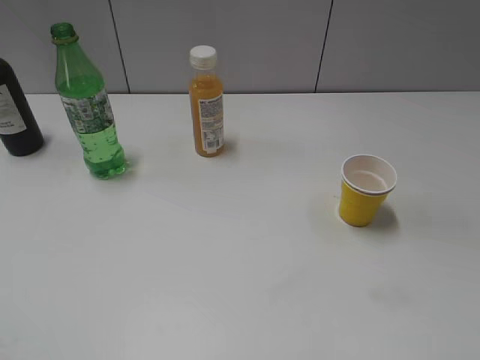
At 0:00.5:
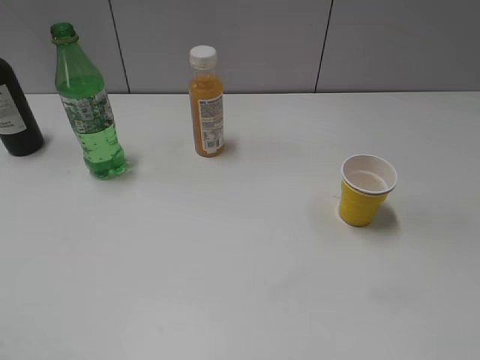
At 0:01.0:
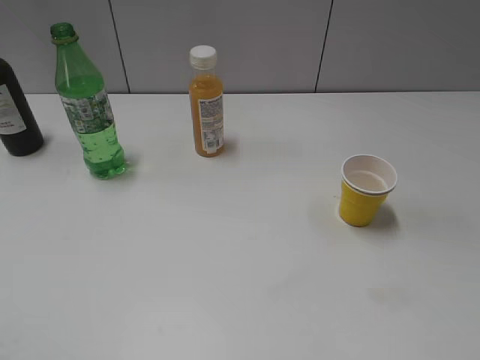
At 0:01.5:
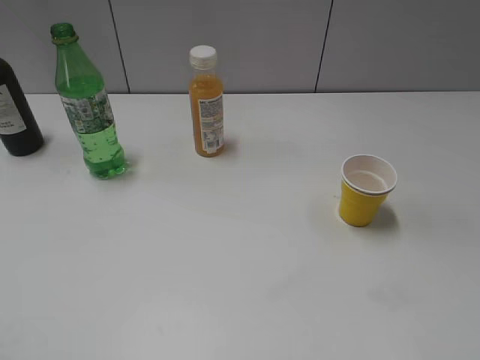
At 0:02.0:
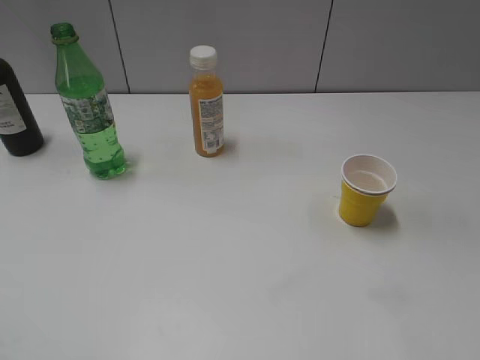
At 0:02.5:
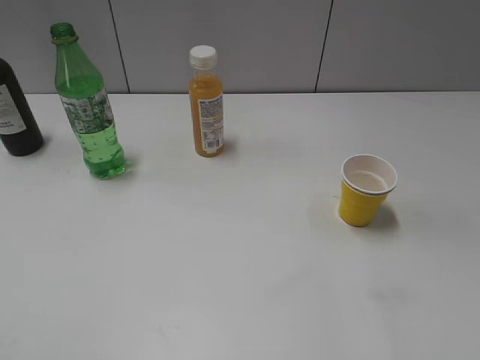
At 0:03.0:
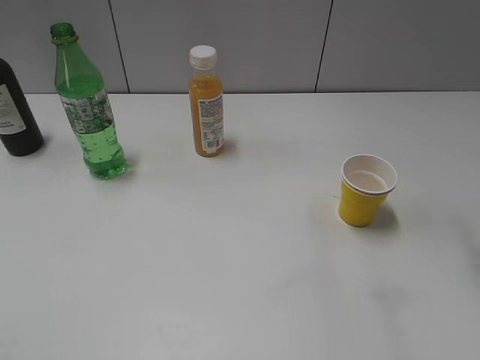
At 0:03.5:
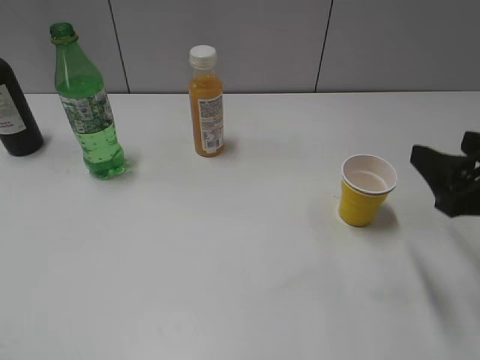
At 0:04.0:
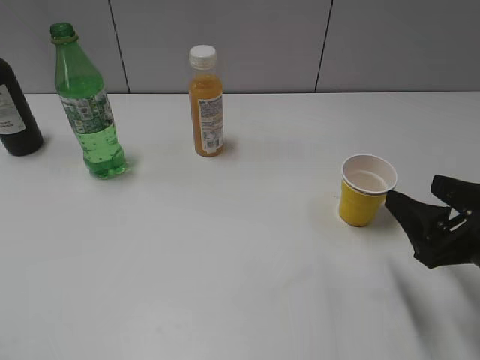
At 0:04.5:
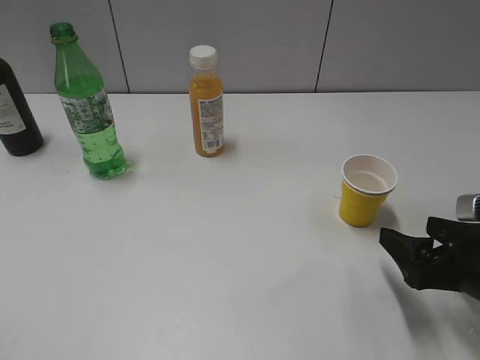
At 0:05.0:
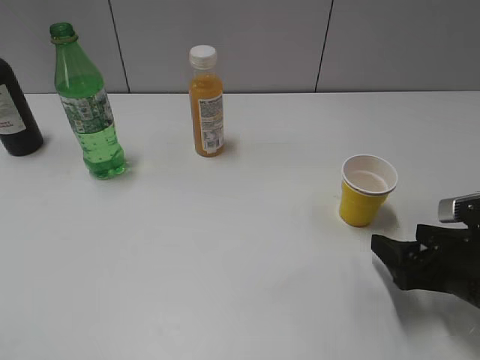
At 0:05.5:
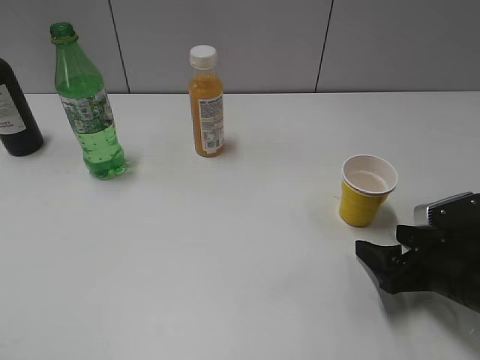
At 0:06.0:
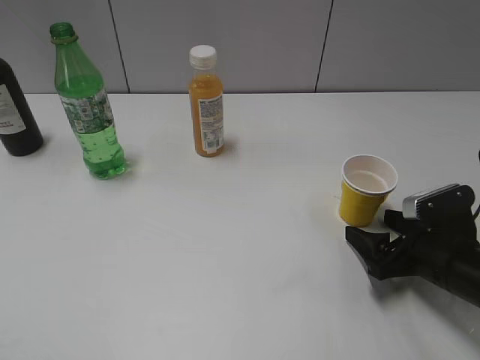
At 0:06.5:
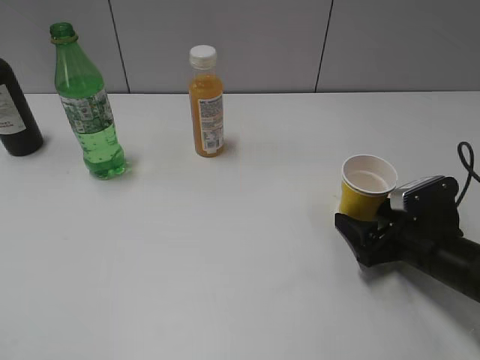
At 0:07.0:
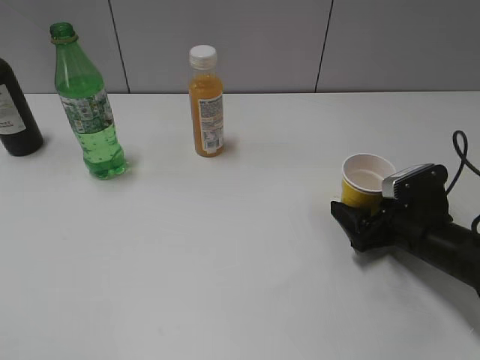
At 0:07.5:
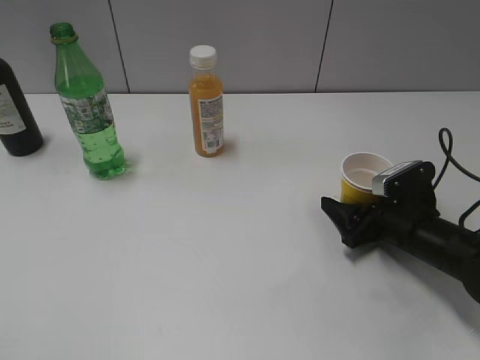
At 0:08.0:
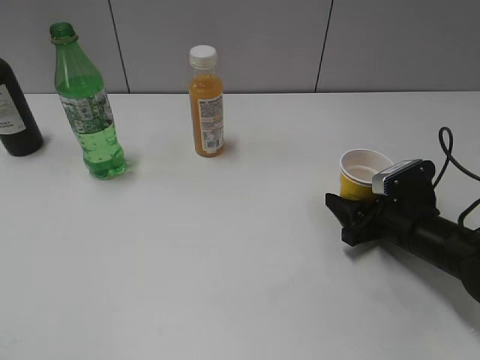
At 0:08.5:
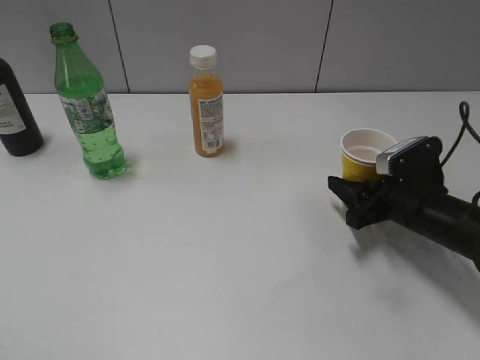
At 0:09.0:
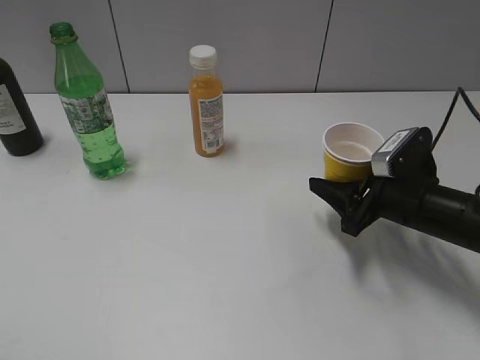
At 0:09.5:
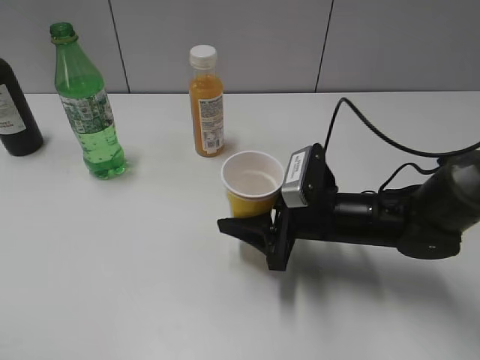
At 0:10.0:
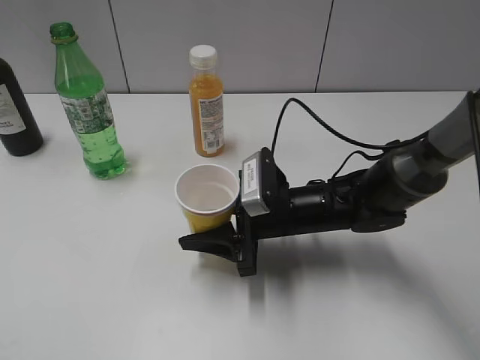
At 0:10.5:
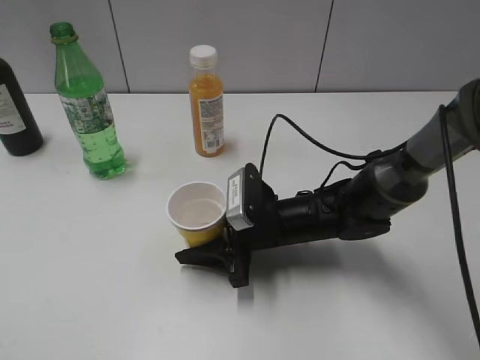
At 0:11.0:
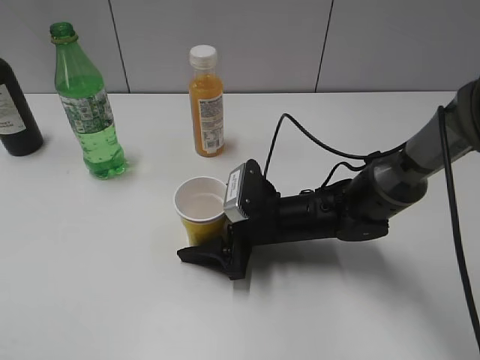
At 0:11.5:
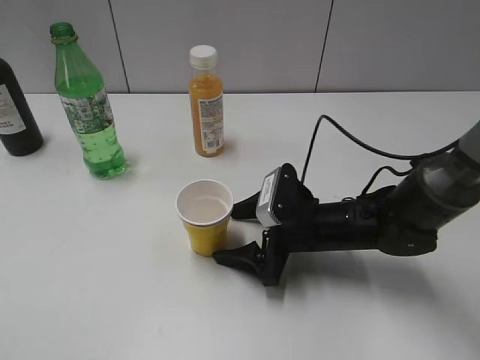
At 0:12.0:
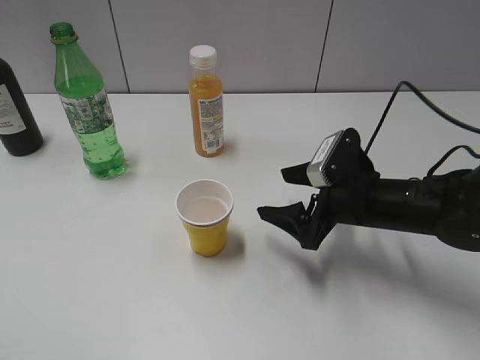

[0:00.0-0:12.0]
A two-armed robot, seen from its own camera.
Step, 0:00.0 to 0:08.0: Grasp the yellow paper cup with right gripper.
Step, 0:08.5 to 0:11.5: Place the yellow paper cup on the table with right gripper.
0:02.0 to 0:04.0: The right gripper travels downward and forward by roughly 20 cm.
0:04.0 to 0:06.0: The right gripper is displaced downward by approximately 10 cm.
0:06.0 to 0:08.0: The right gripper moves forward, roughly 5 cm, and closes up.
0:08.0 to 0:10.0: The right gripper travels to the left by some 15 cm.
0:10.0 to 0:12.0: The right gripper travels to the right by about 10 cm, and opens its fingers.

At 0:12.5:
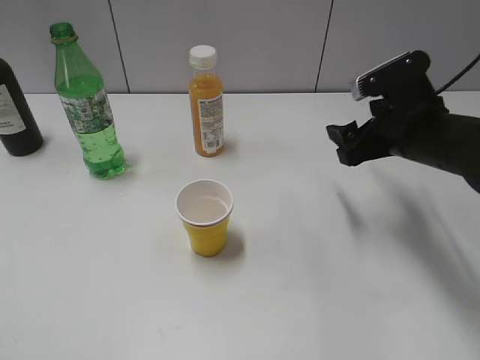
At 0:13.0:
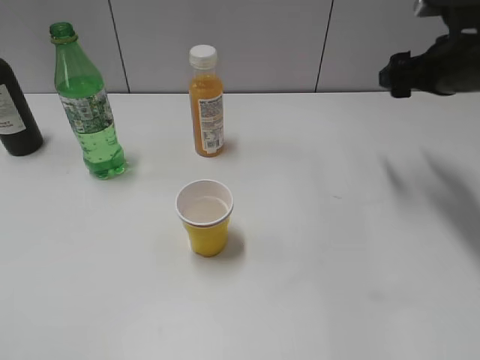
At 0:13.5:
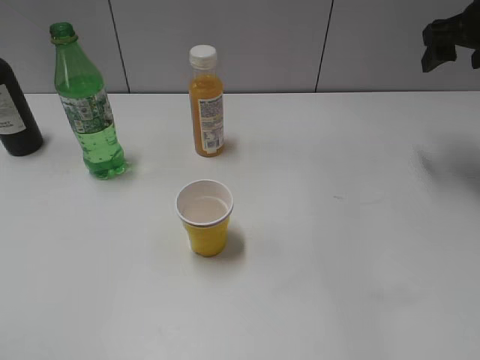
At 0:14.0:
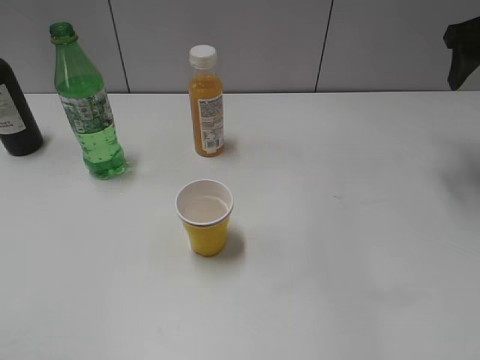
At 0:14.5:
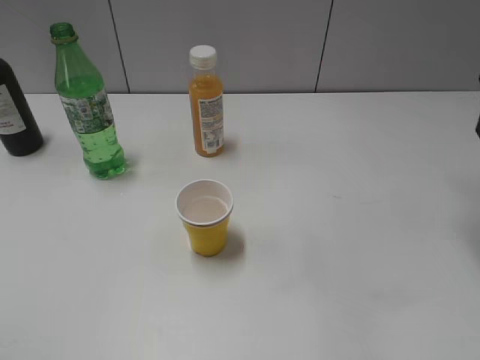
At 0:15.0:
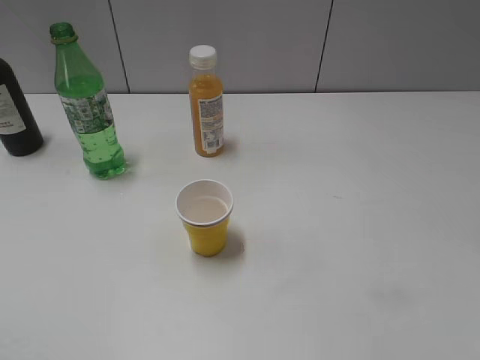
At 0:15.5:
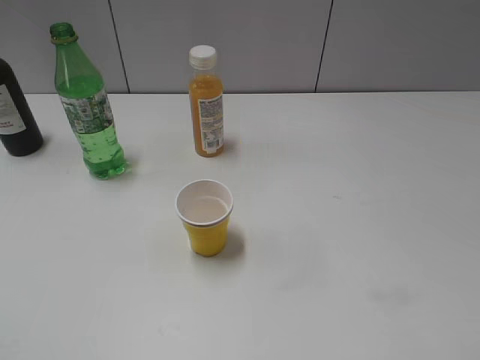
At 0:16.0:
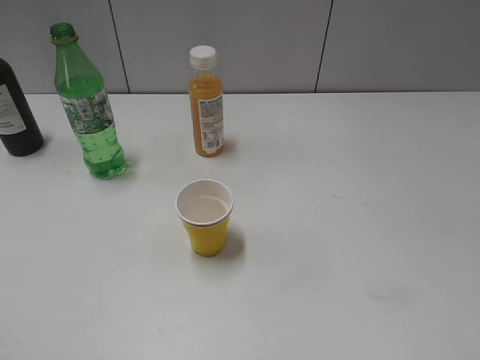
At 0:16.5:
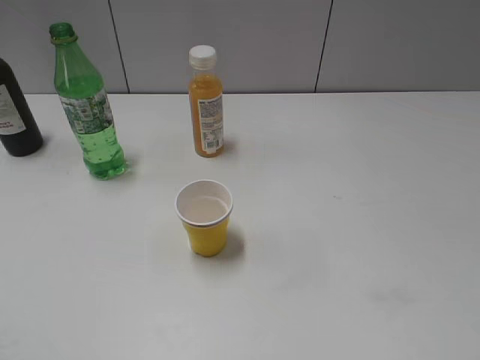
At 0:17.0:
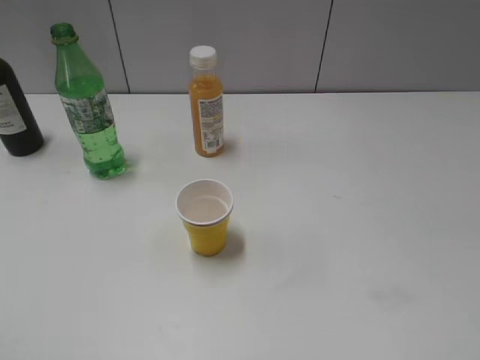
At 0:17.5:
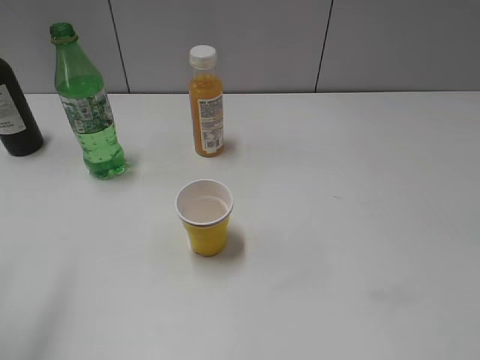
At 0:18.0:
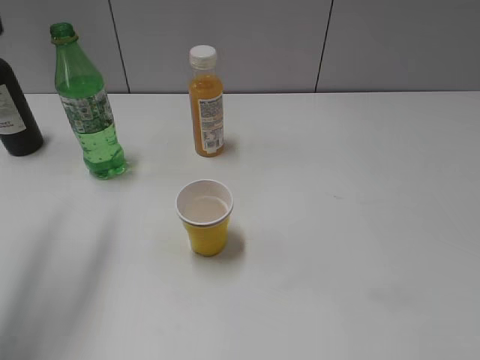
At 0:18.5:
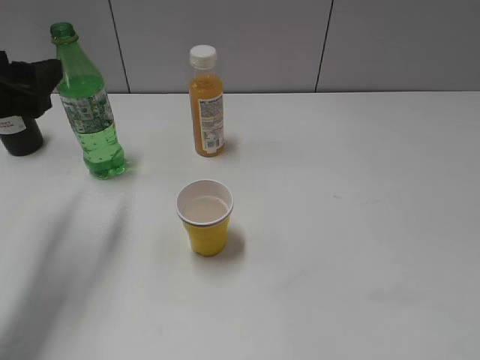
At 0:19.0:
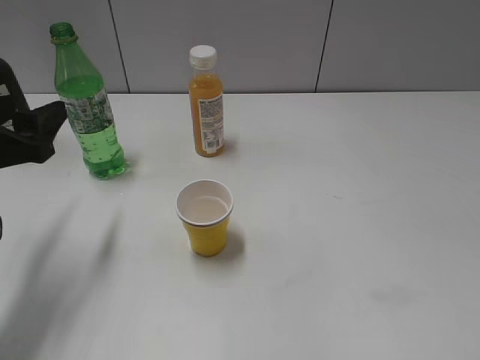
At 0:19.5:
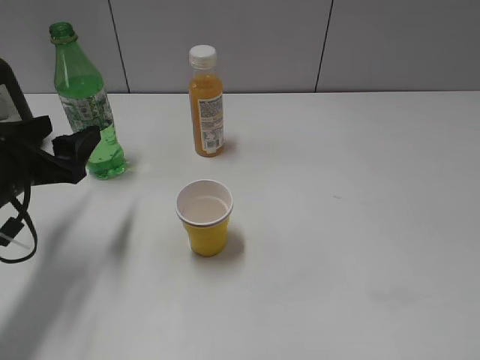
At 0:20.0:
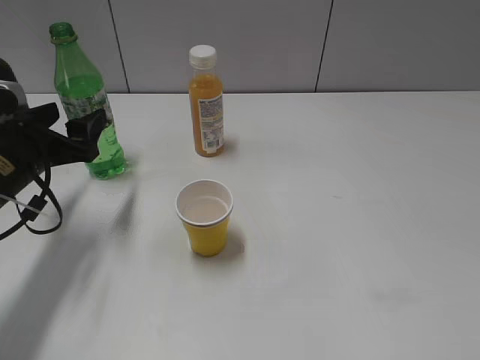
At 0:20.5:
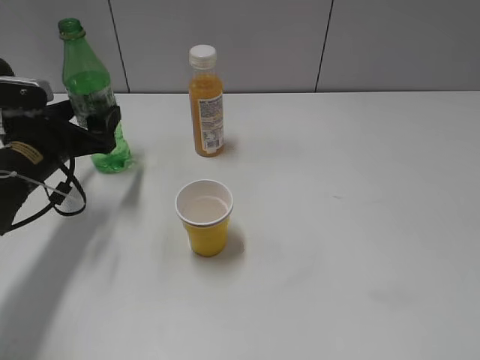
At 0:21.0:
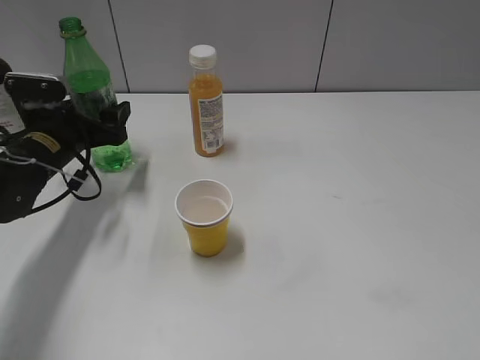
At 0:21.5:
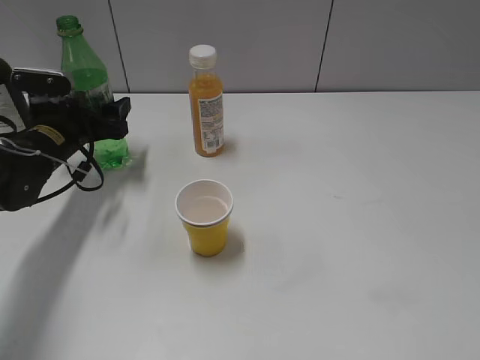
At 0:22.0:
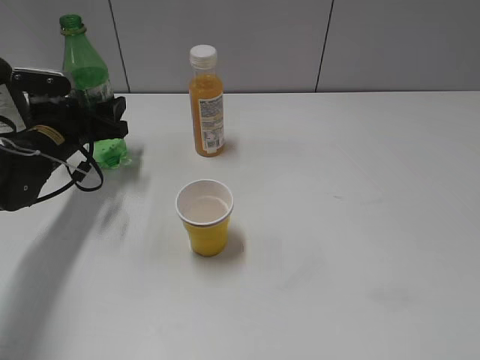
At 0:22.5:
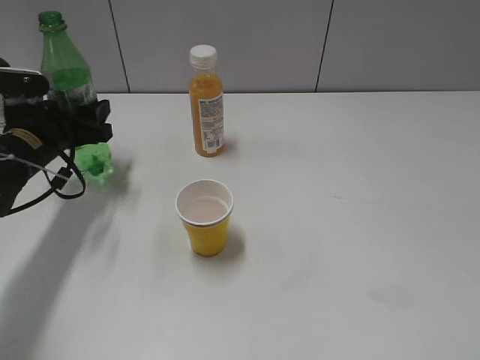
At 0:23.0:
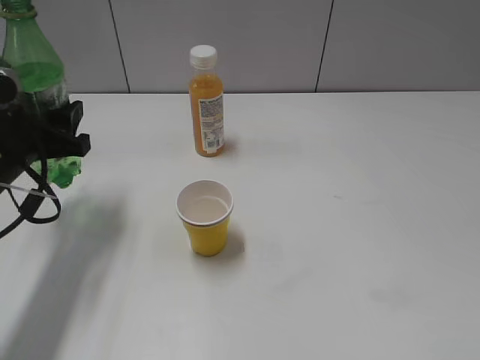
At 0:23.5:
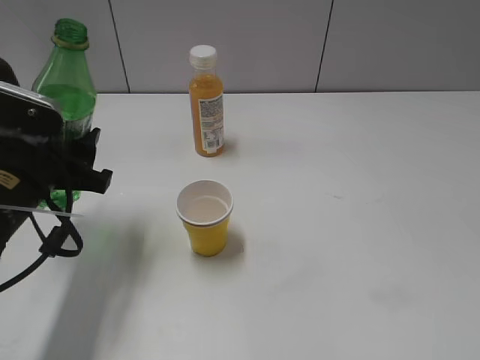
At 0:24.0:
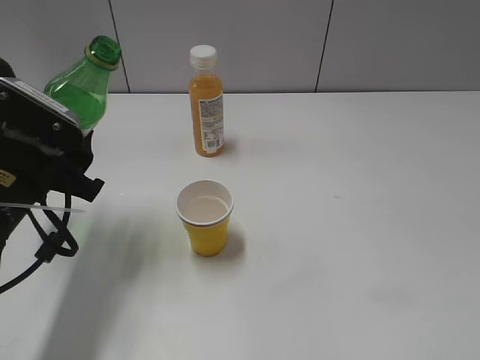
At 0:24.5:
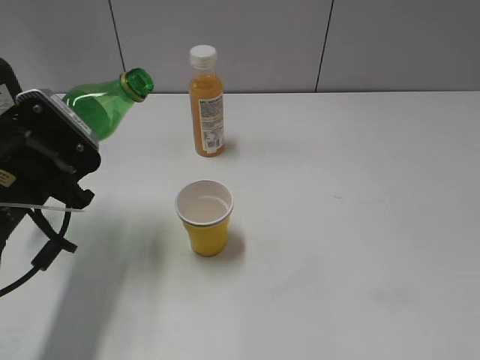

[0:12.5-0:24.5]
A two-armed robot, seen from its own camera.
Step, 0:12.5 to 0:21.5: Grasp the bottle with sprite with left gripper.
0:12.5 to 0:14.5: The right gripper goes some 15 cm upward and to the right.
0:16.5 to 0:18.5: The left gripper moves forward, roughly 25 cm.
0:18.5 to 0:20.5: The left gripper travels downward and forward by about 15 cm.
0:20.5 to 0:22.5: The left gripper closes its fingers.
0:22.5 to 0:24.5: The left gripper is displaced backward by approximately 10 cm.

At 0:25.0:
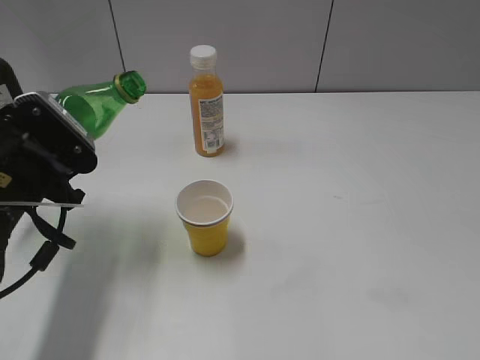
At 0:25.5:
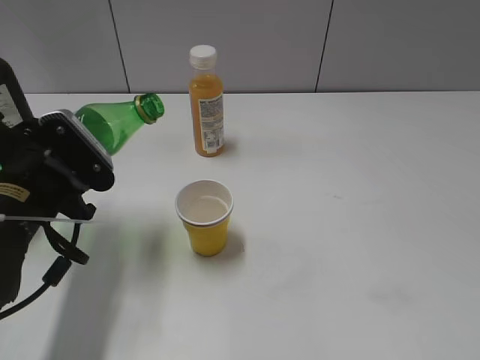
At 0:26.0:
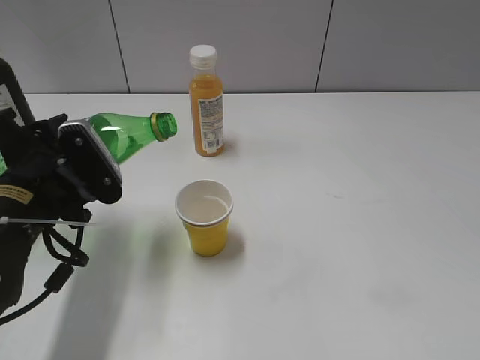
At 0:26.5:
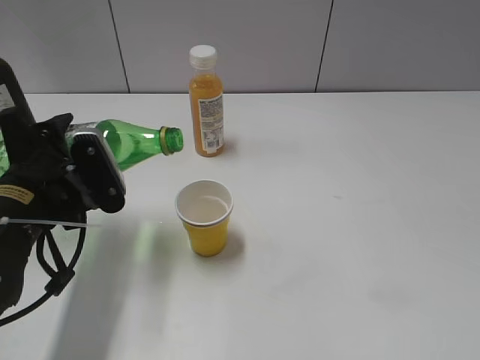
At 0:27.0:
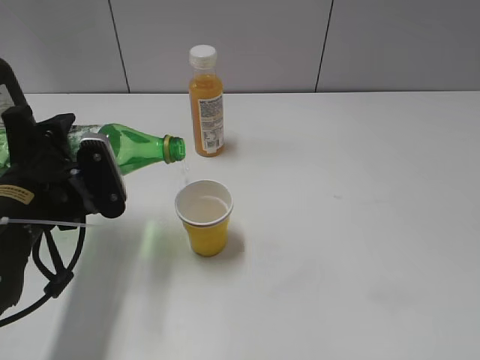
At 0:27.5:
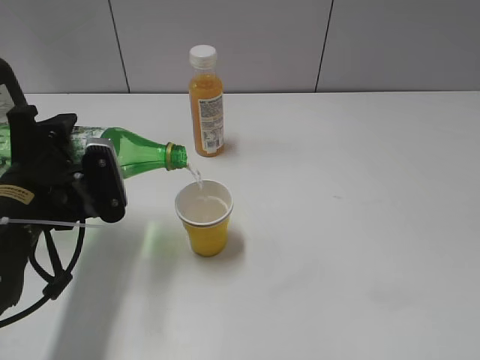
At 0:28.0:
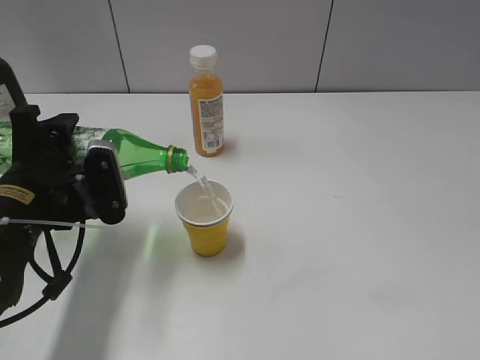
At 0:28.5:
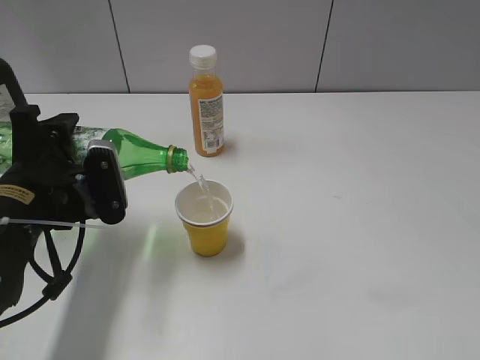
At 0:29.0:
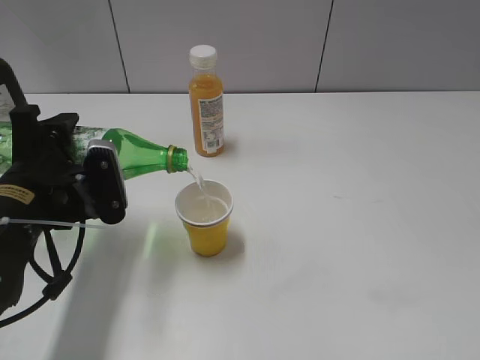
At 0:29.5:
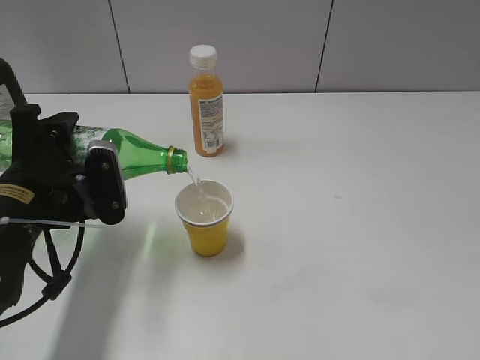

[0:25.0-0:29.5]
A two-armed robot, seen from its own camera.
0:27.0 to 0:29.5: The grippers stay close to where they were, moving slightly.
